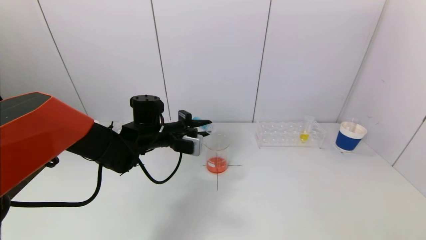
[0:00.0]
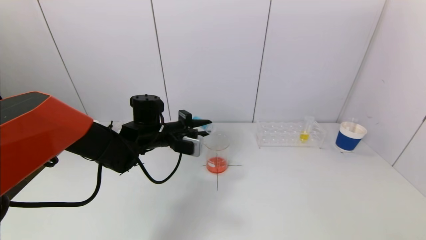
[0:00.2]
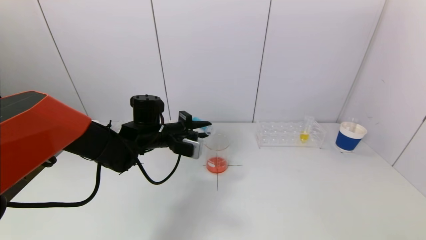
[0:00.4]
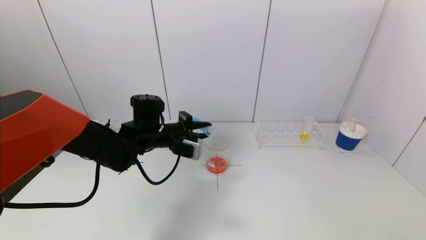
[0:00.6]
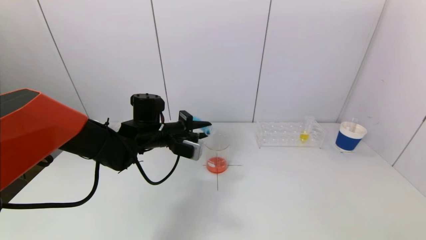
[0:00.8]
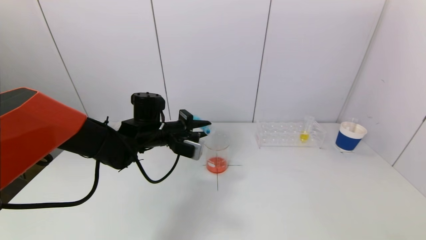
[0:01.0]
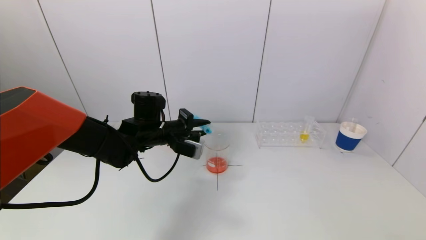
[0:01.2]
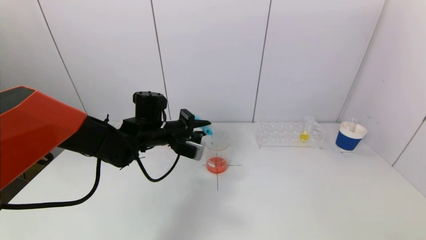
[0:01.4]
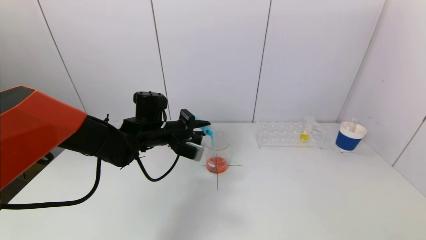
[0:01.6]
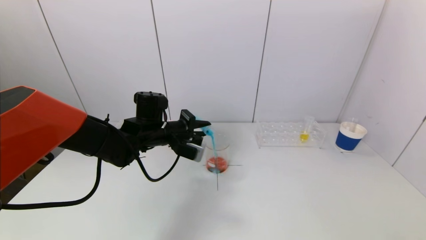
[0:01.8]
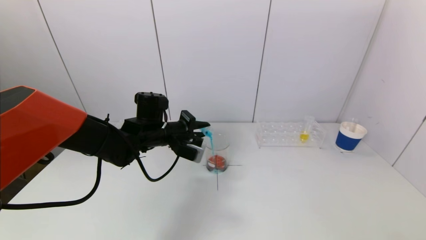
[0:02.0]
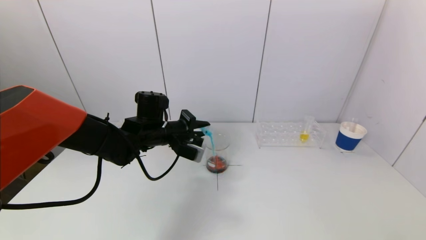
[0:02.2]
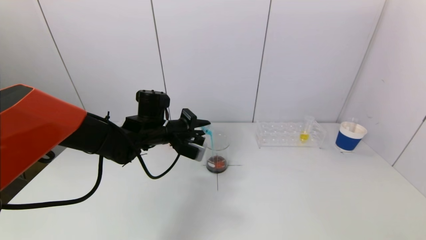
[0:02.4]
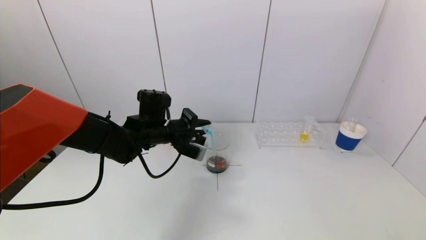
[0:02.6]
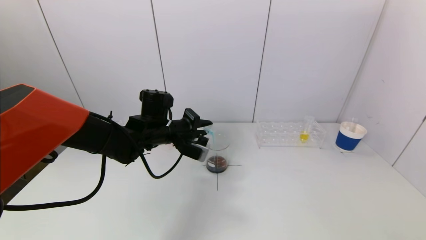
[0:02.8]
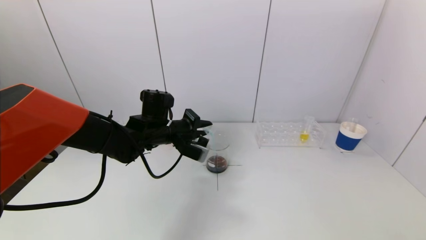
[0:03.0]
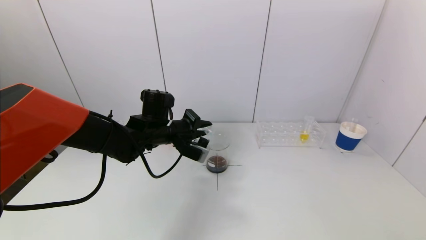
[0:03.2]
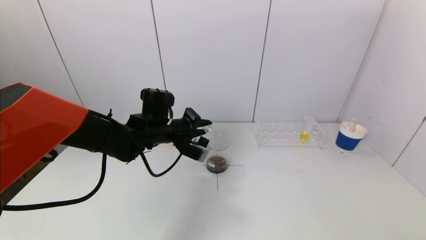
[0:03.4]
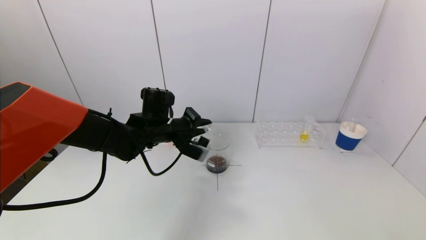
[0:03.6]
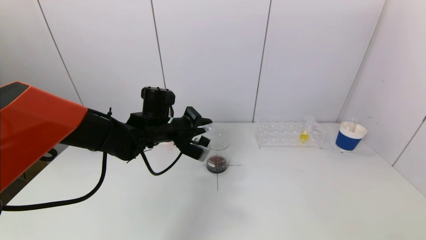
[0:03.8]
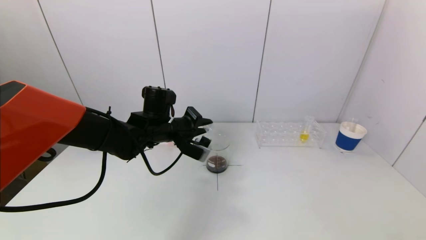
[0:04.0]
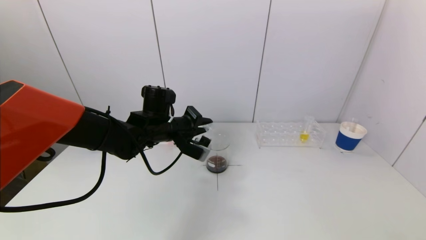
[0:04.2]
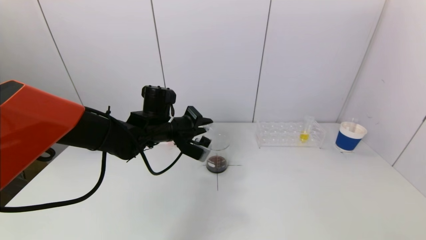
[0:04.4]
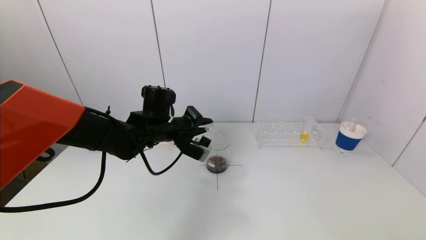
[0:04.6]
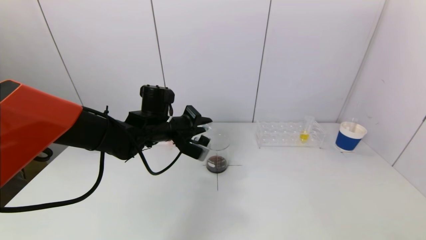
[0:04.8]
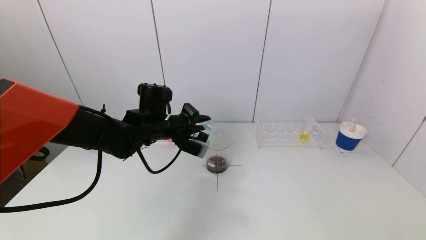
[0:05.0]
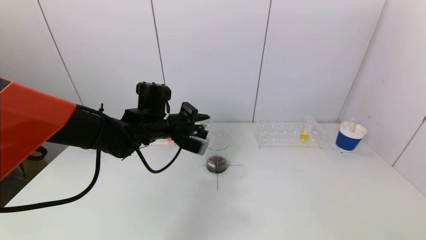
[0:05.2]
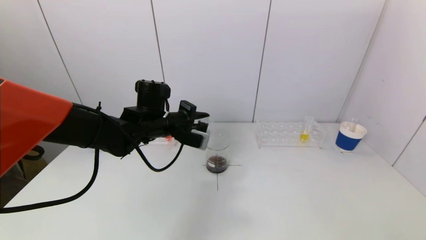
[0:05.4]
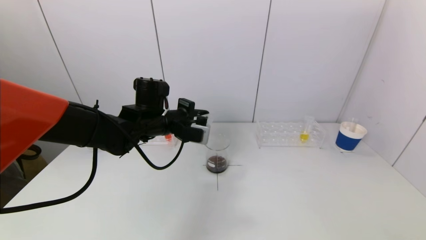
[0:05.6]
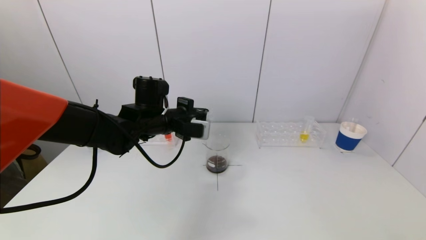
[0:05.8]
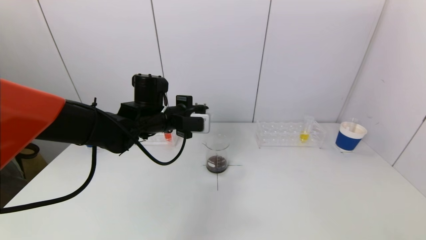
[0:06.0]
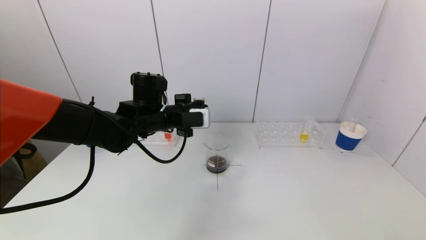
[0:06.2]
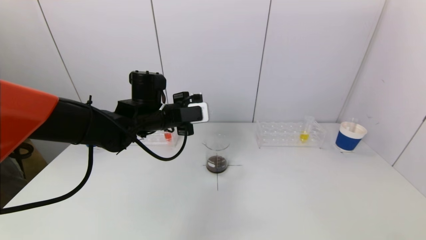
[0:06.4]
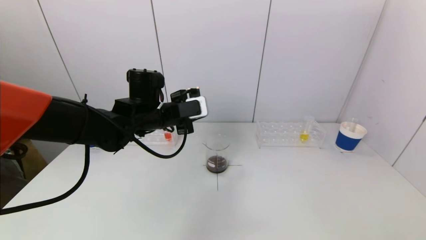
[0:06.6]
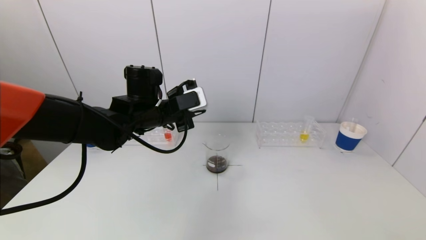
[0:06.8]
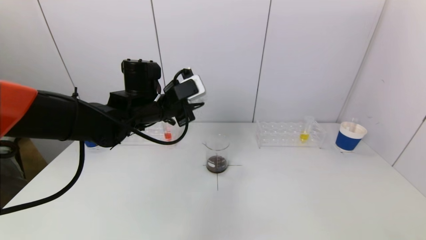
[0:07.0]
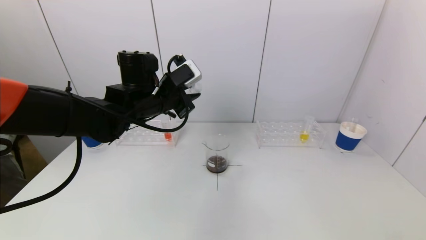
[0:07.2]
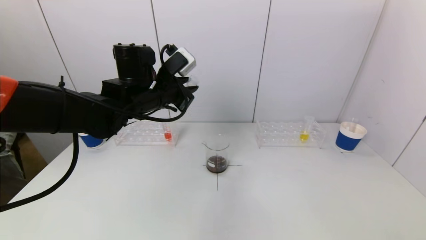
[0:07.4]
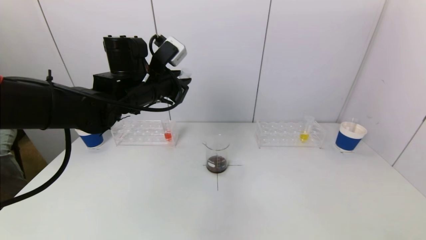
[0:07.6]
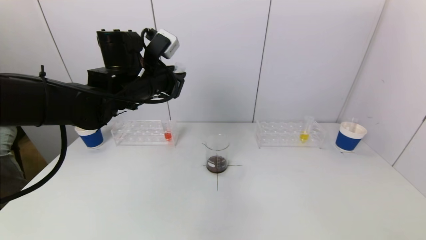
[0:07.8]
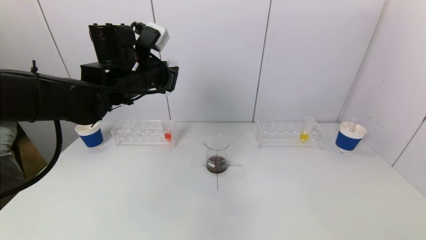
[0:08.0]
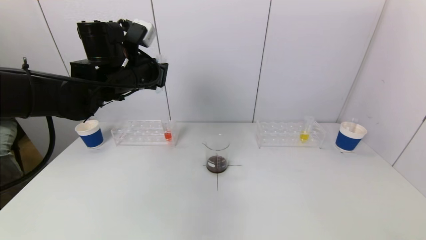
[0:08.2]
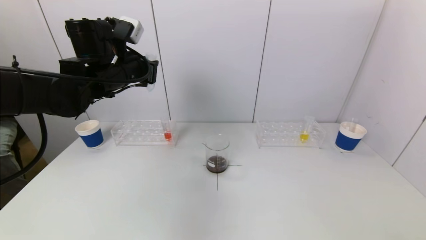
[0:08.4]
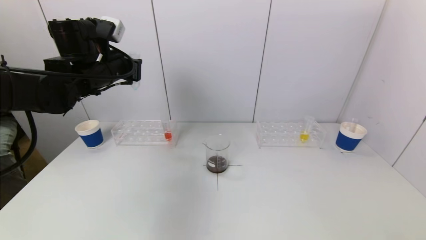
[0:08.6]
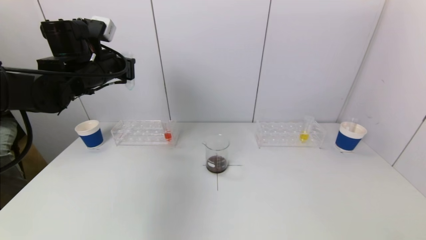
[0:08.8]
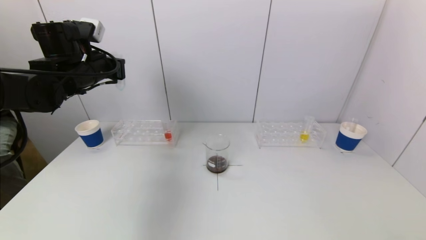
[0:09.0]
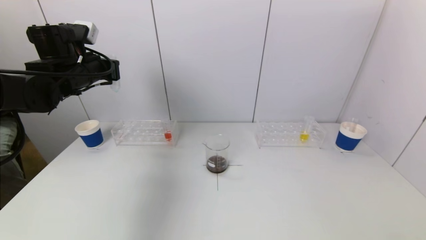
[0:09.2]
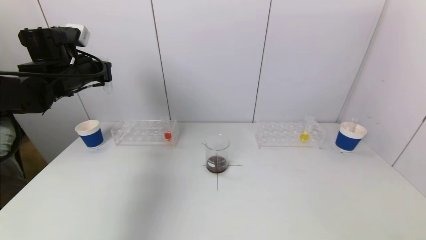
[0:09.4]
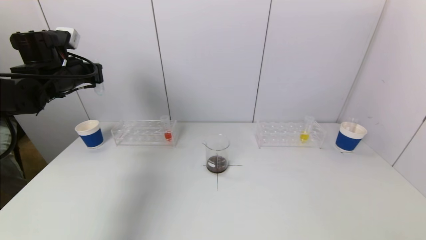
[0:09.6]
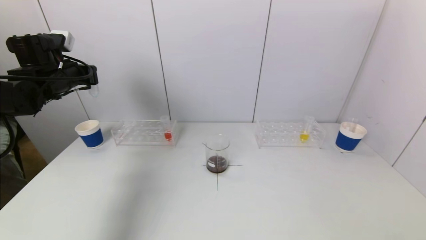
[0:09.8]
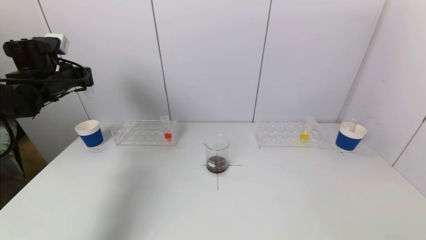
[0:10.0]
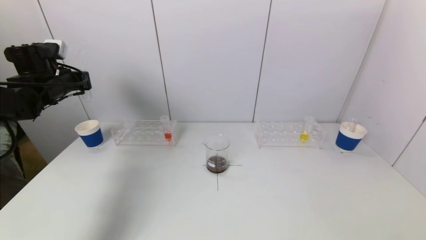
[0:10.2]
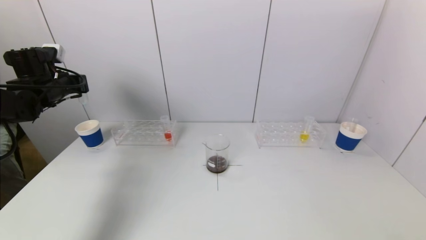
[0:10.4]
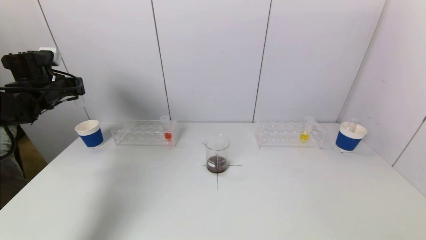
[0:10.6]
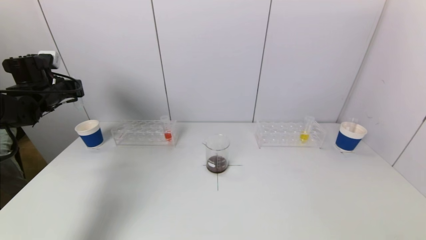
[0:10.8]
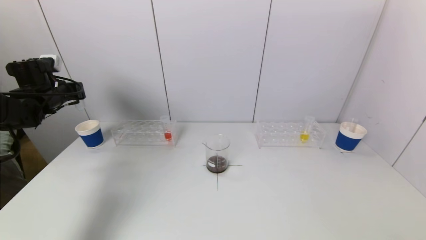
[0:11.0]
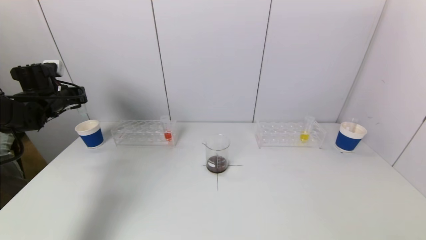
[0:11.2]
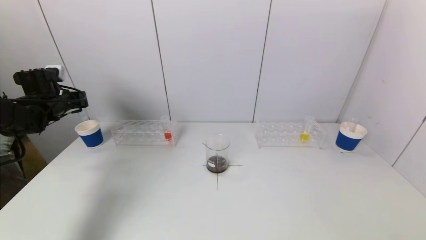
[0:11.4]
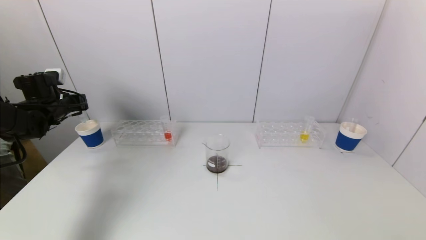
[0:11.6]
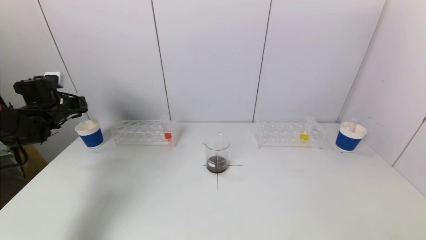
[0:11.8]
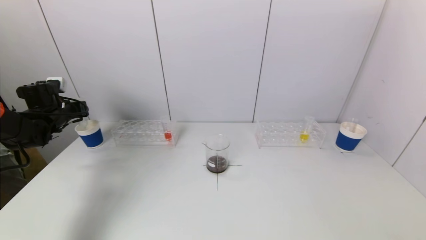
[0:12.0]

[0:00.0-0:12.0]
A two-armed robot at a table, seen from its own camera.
Task of the whole recording: pick up a test tube with pigment on left test tube rack and a test tube with pigment on right test tube rack by grippers and pour them into the beaker.
Step, 0:00.0 to 0:03.8: Pour the blue reagent into the graduated cylinder with the left gripper.
0:00.0 to 0:01.6: The grippers make only small movements.
0:01.6 to 0:04.4: The grippers move only a little.
0:06.0 to 0:07.6: The left gripper moves upward, approximately 5 cm.
0:07.6 to 0:09.0: The left gripper is displaced to the left by roughly 15 cm.
0:09.0 to 0:10.4: The left gripper moves to the left, approximately 10 cm.
0:10.4 to 0:12.0: The left gripper moves downward, about 10 cm.

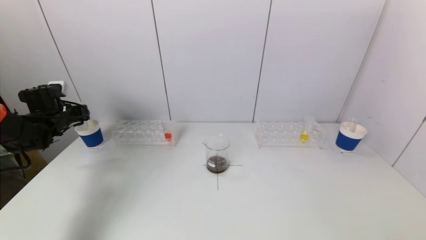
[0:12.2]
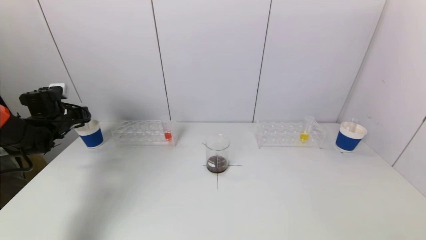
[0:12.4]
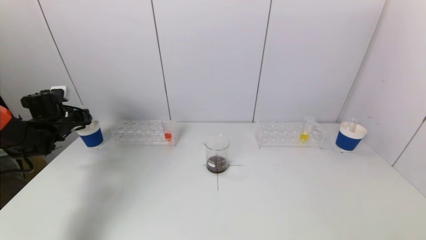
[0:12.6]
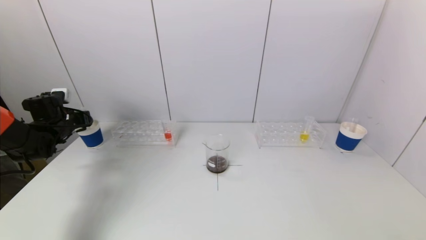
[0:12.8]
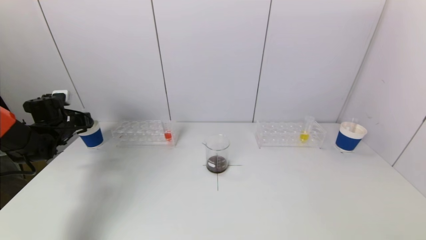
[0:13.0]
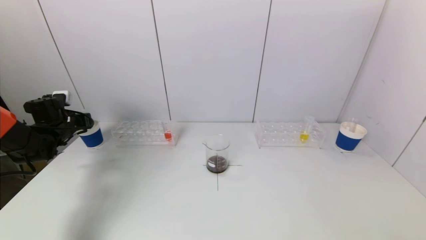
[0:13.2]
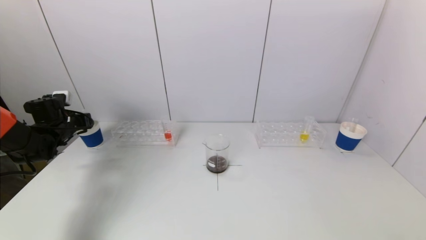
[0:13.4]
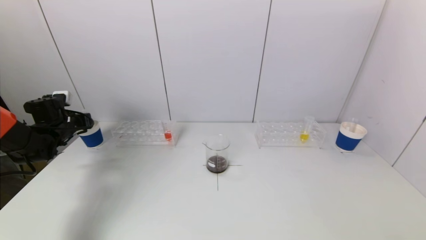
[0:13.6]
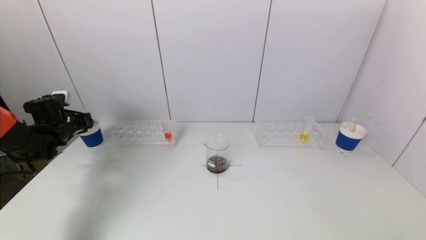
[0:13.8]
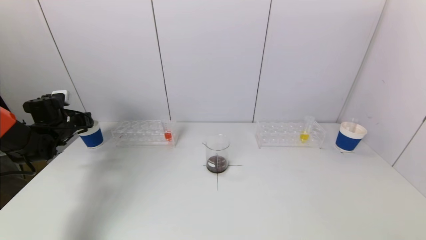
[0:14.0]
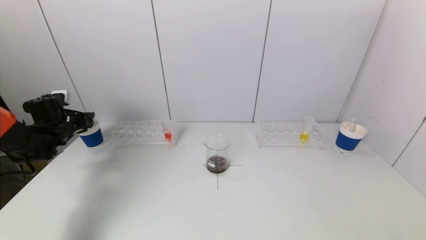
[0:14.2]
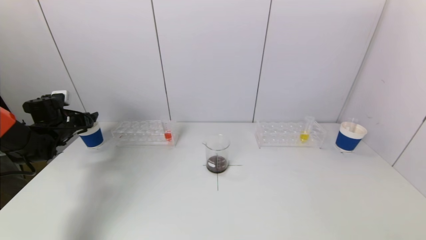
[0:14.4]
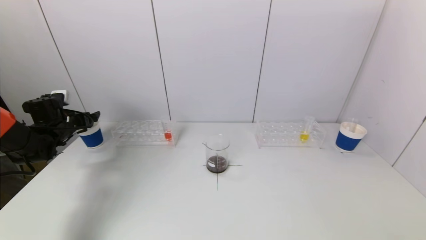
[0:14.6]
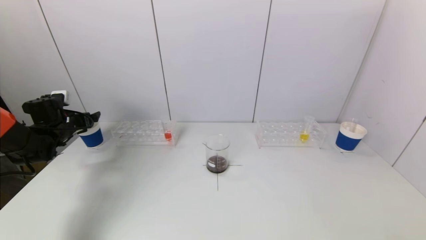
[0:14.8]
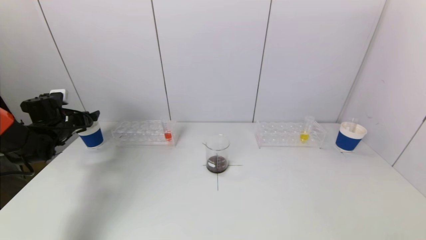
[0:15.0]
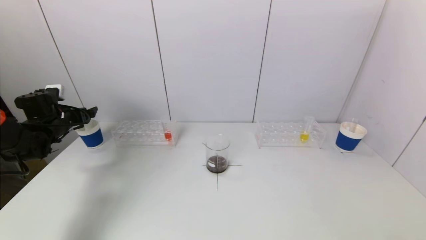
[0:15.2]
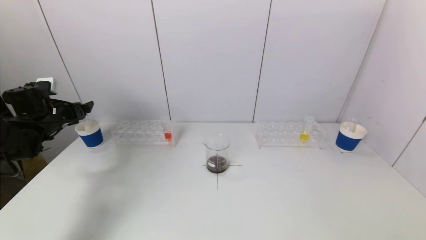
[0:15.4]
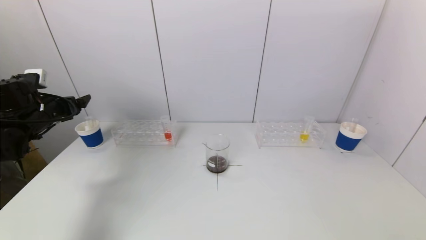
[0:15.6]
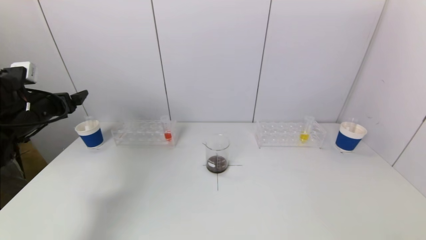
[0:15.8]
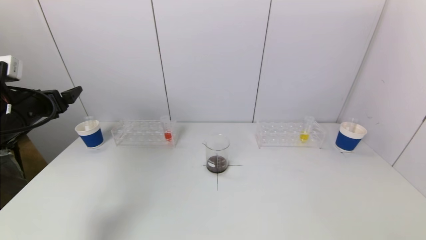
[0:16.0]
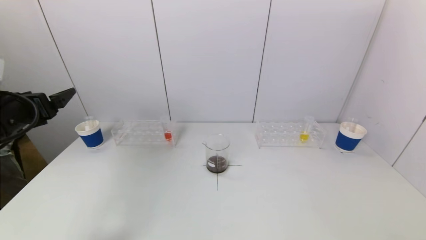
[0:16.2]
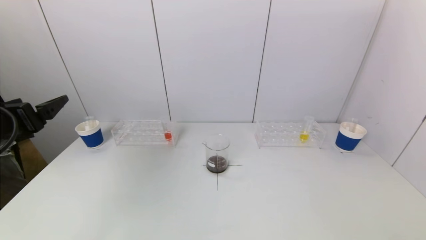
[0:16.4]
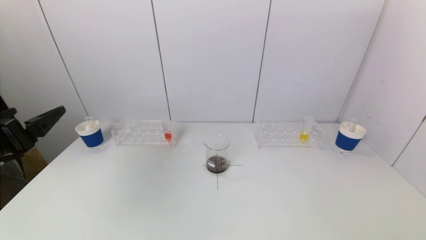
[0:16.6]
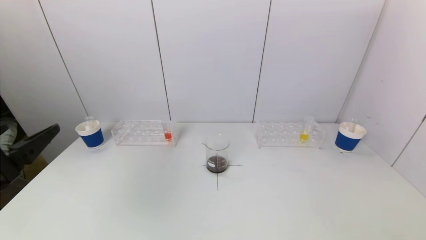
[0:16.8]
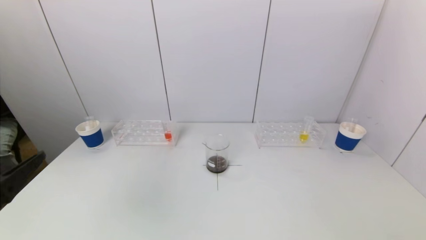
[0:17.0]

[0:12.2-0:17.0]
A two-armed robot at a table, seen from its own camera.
Task of the whole recording: pick up a test tube with pigment on left test tube rack and a test tube with pigment on right test tube rack by grippers and pour them into the beaker.
Step, 0:12.2 to 0:14.8: Place the test tube into the paper cup with the left gripper.
0:12.2 to 0:13.8: The grippers stay close to where they were, moving slightly.
0:13.8 to 0:15.4: The left gripper ends up approximately 5 cm from where it was, and opens.
0:15.4 to 0:17.0: The left gripper heads backward, covering about 30 cm.
